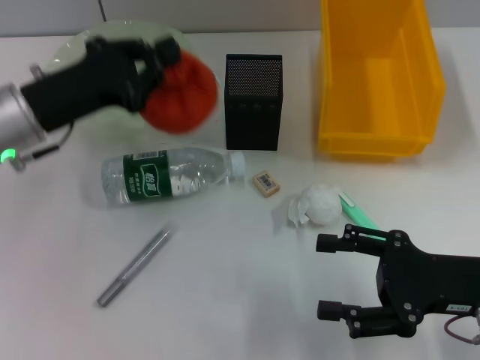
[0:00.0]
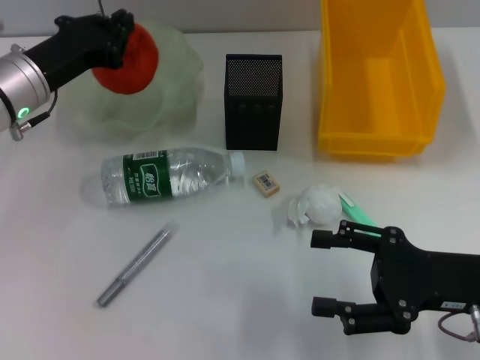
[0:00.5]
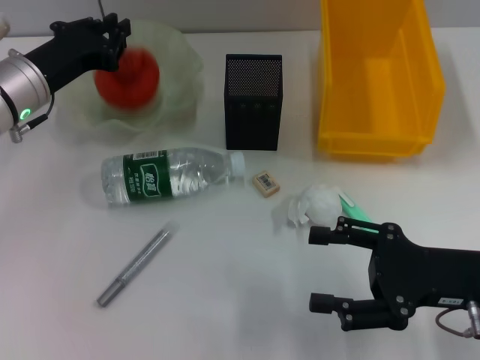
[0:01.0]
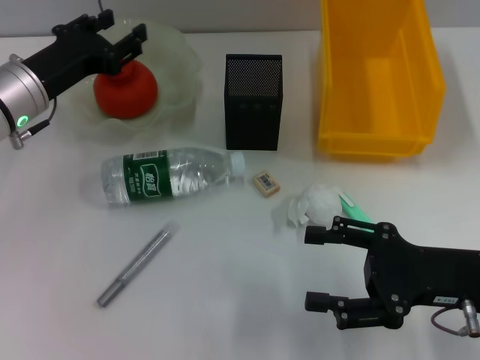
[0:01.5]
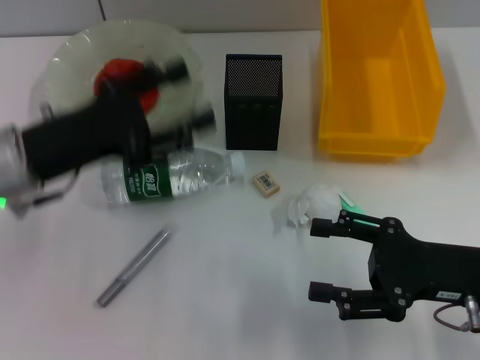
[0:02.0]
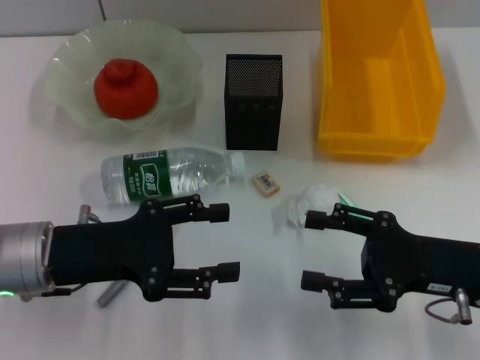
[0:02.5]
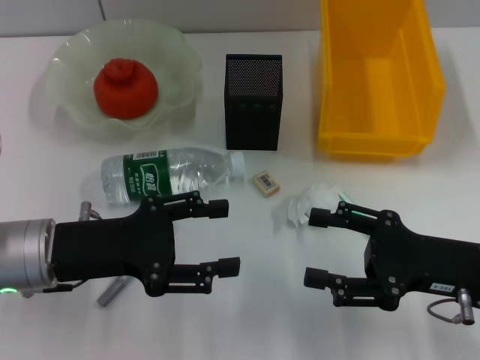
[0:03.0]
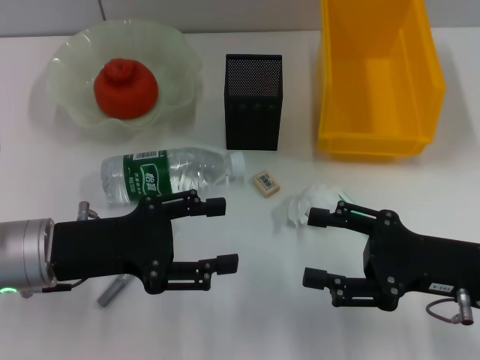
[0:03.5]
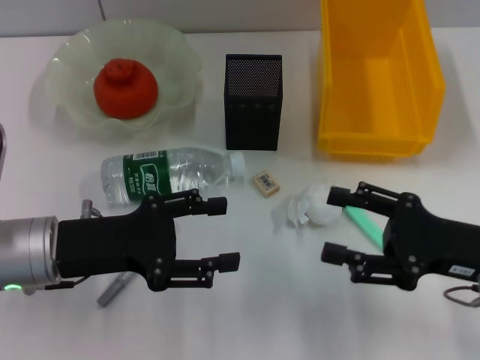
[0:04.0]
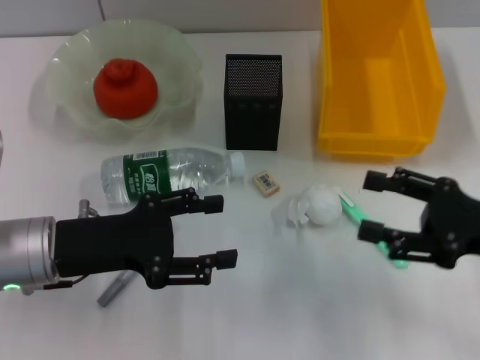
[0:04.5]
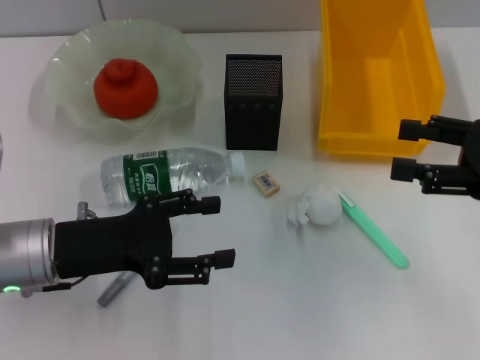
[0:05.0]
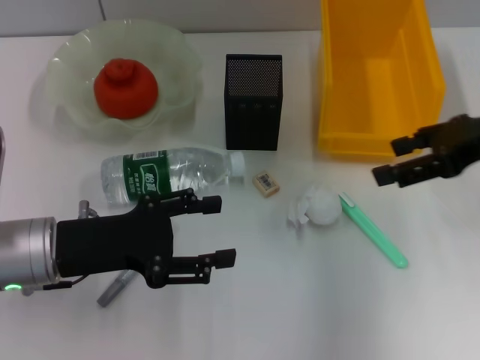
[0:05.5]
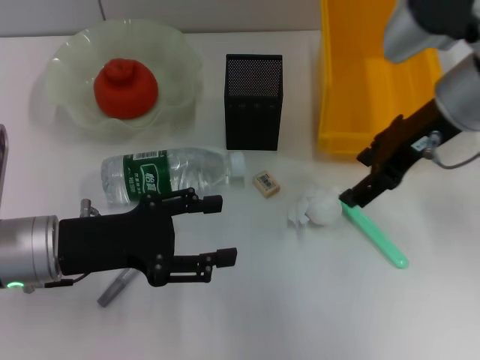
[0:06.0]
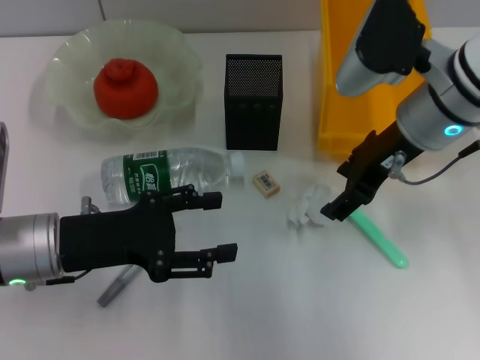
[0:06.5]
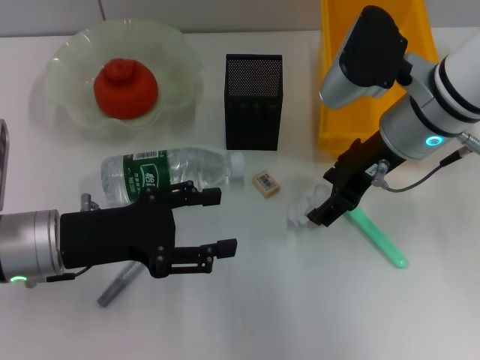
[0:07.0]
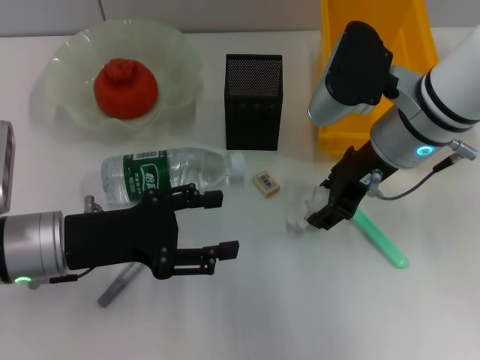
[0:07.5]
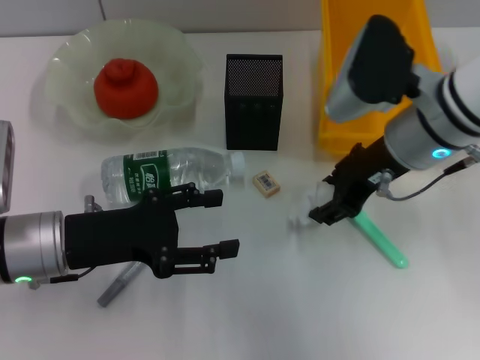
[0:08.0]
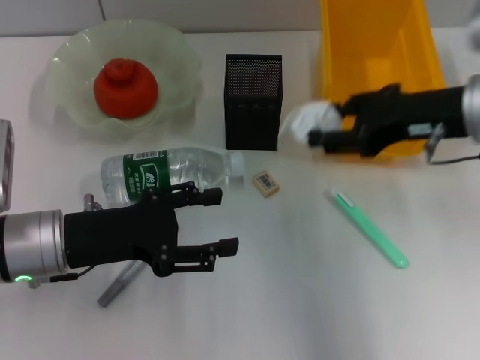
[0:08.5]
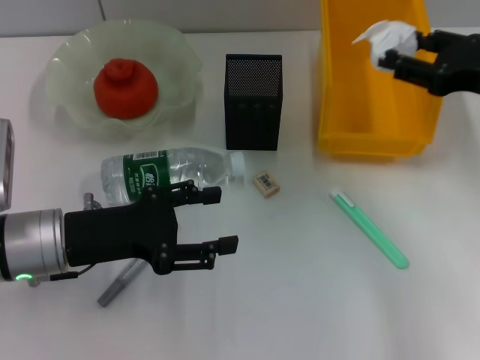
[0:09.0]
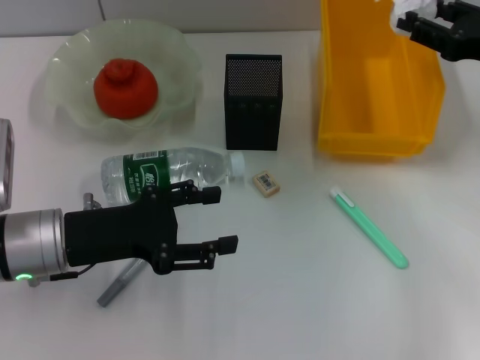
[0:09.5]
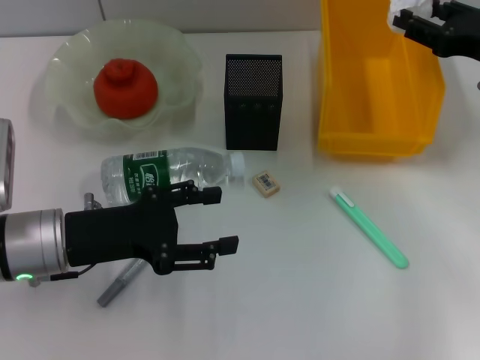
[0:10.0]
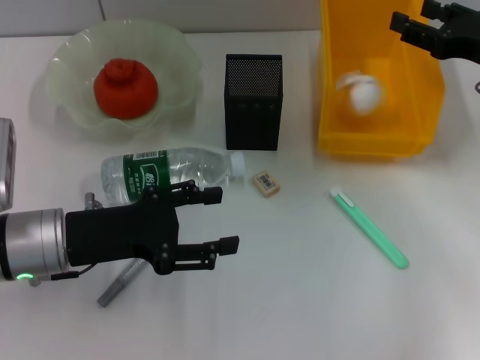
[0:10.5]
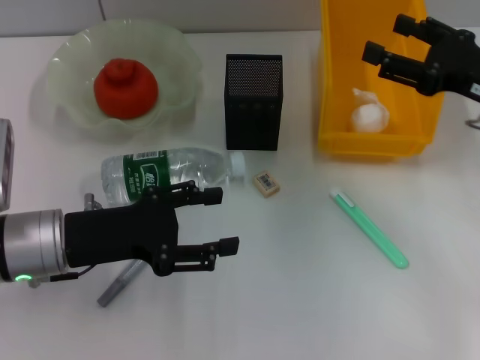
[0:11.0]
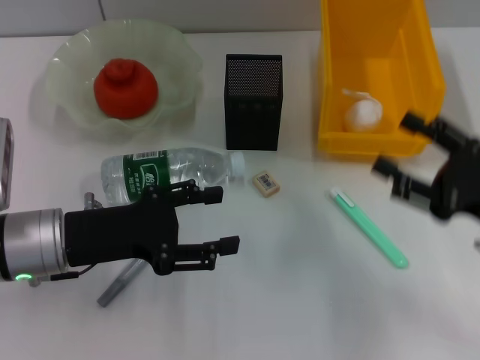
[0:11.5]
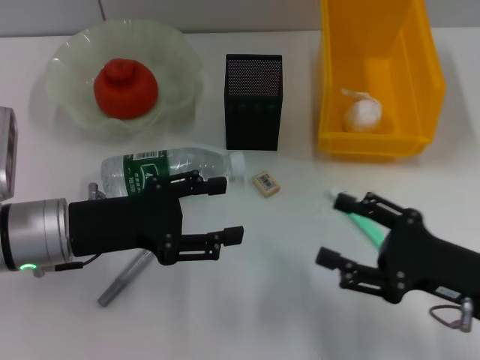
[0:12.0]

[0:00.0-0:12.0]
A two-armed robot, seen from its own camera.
Step, 0:01.5 to 0:07.0: Grab the paper ball with the right hand.
Step, 0:08.0 to 0:10.5: Place the paper ball into the trash can with the right hand.
0:00.0 to 0:02.0: The left gripper opens its fingers.
0:02.0 to 0:04.0: The left gripper ends up approximately 5 cm from where it was.
0:04.0 to 0:06.0: The right gripper shifts roughly 20 cm forward, upward and to the left.
0:06.0 to 0:08.0: The right gripper ends up approximately 5 cm from where it was, and closes.
0:08.0 to 0:10.0: The right gripper travels to the right by about 15 cm.
0:10.0 to 0:12.0: The right gripper is displaced backward and downward by about 20 cm.

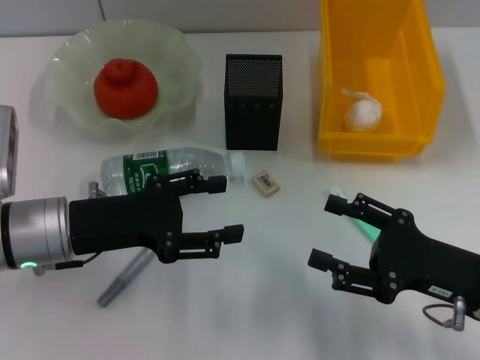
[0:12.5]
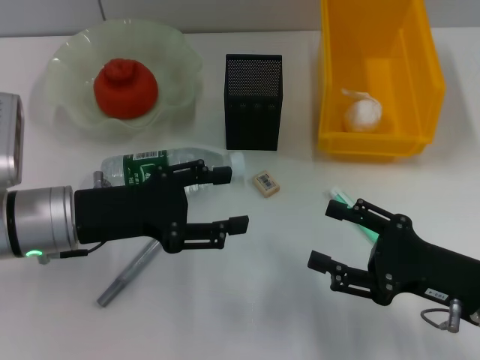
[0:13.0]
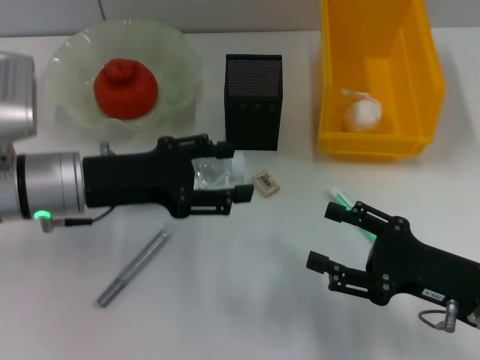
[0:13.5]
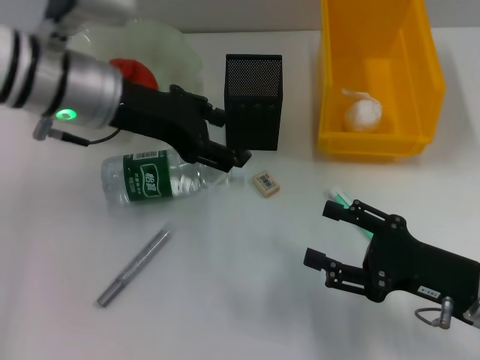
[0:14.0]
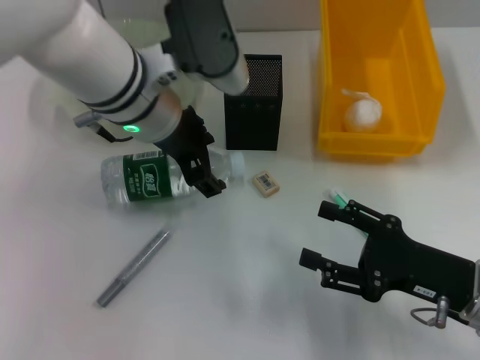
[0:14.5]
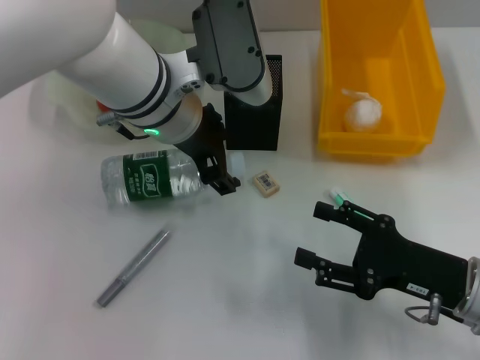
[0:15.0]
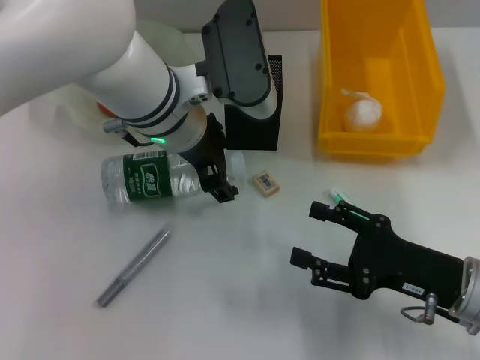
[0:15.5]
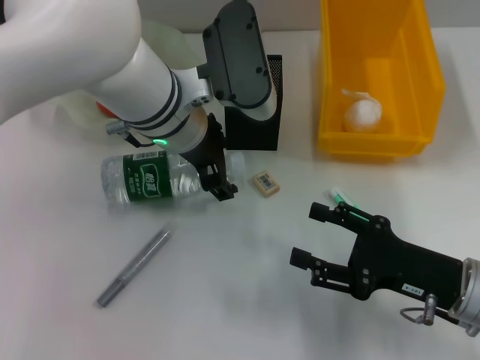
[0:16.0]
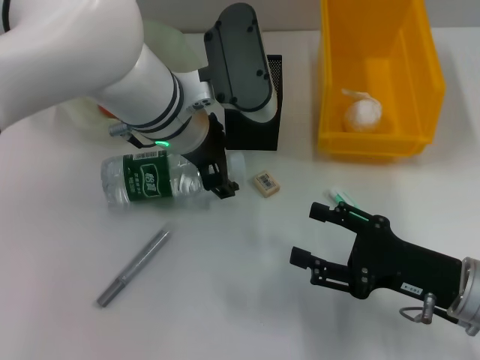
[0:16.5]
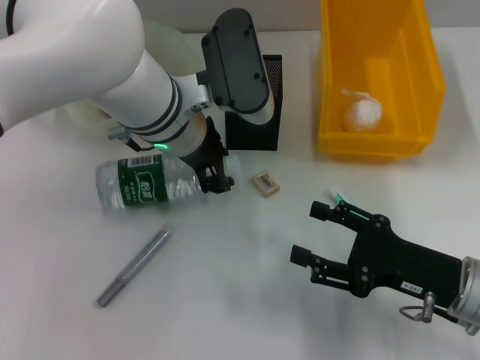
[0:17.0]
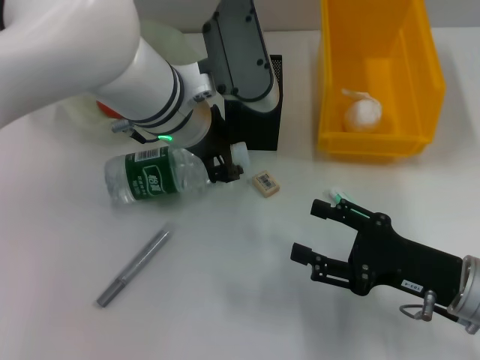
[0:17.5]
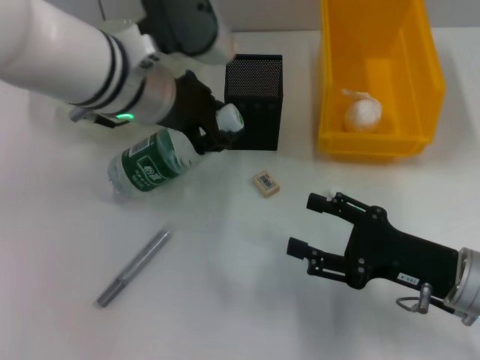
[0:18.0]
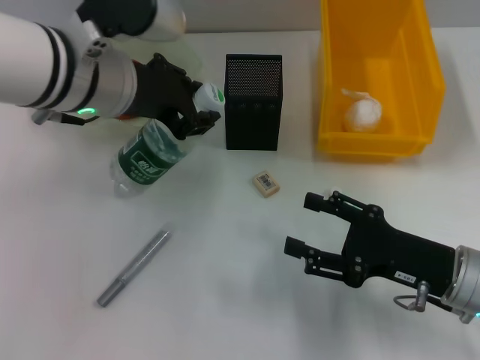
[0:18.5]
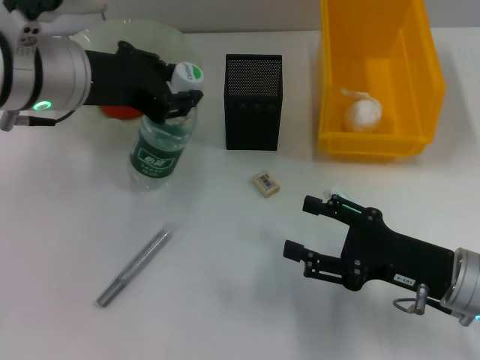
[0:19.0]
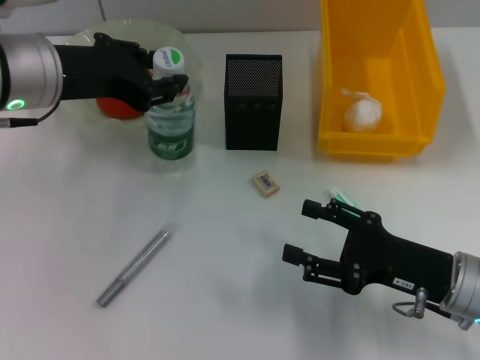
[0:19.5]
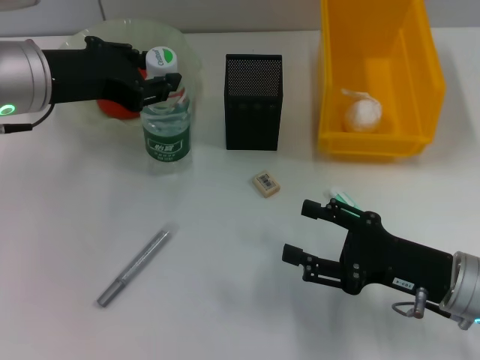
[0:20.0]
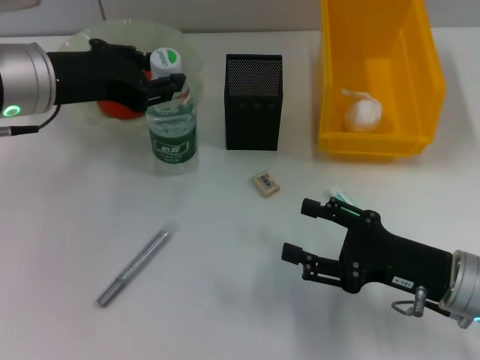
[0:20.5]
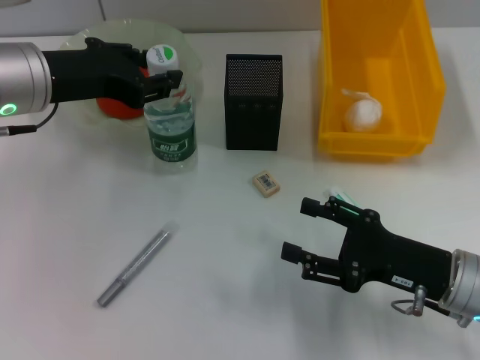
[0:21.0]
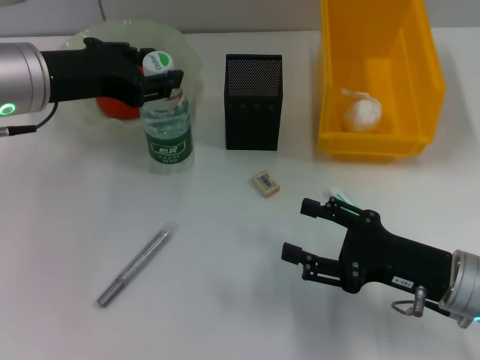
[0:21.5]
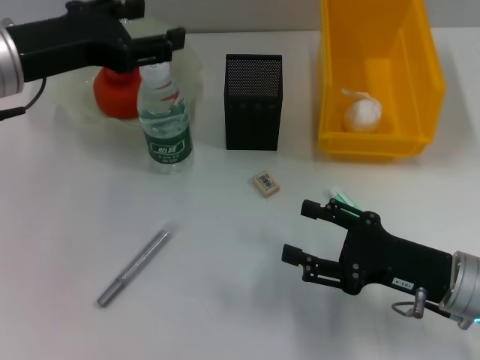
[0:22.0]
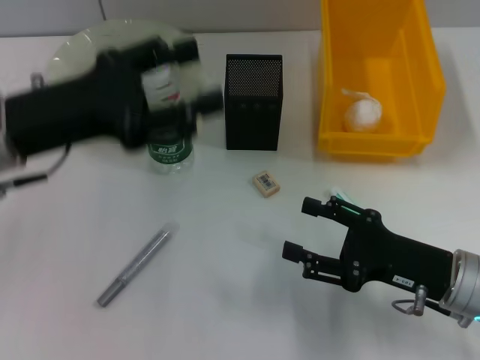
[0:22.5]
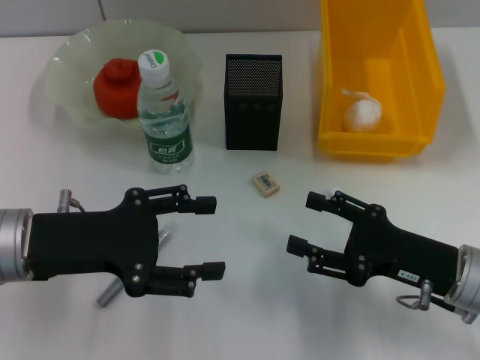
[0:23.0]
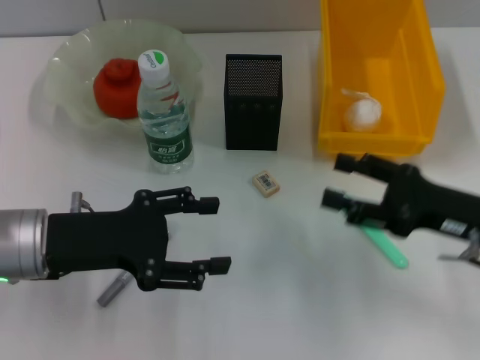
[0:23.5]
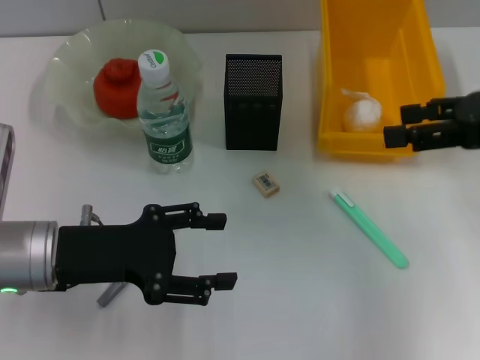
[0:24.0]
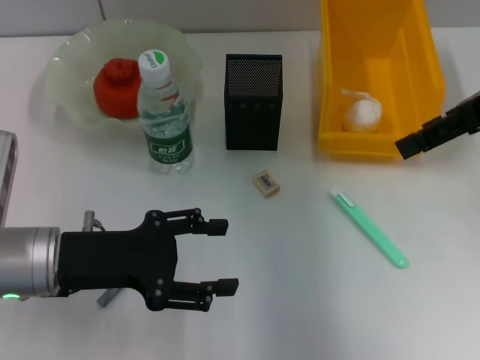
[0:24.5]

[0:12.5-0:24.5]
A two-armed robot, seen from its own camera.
Step, 0:12.5 to 0:17.0: Grab the water bottle with the left hand.
Step, 0:17.5 to 0:21.5: Place the water bottle on the table with the left hand.
0:12.5 to 0:14.5: The left gripper goes some 20 cm to the right, forward and upward.
0:14.5 to 0:16.5: The grippers move only a little.
0:16.5 to 0:18.5: The left gripper goes about 10 cm to the left and upward, and closes up.
0:18.5 to 0:20.5: The left gripper is displaced to the left by roughly 5 cm.
0:20.5 to 0:22.5: The left gripper shifts by about 5 cm, and opens up.
0:22.5 to 0:24.5: The right gripper moves upward and forward, about 25 cm, while the left gripper travels downward by some 10 cm.

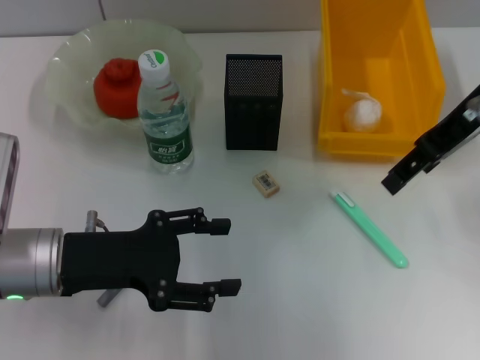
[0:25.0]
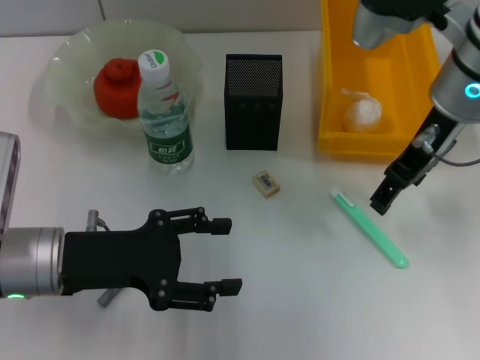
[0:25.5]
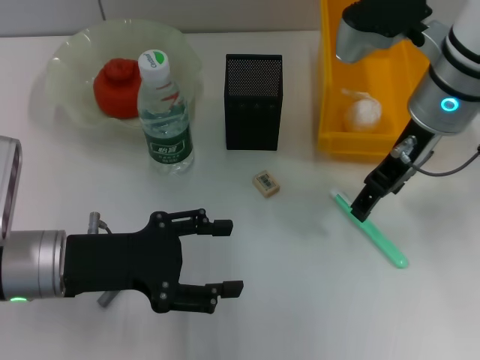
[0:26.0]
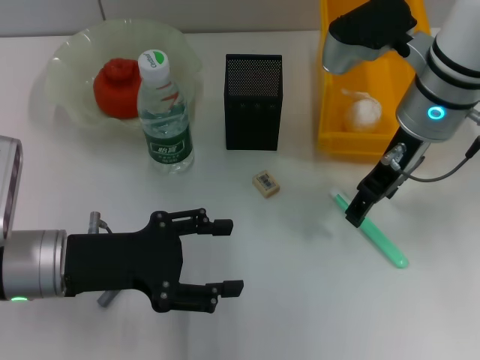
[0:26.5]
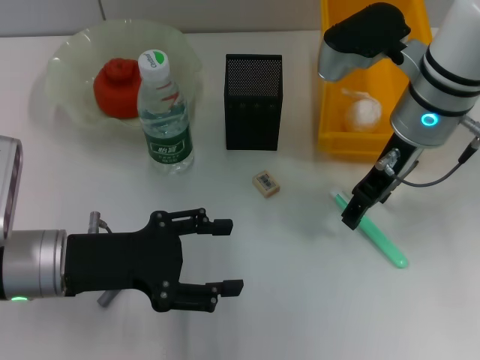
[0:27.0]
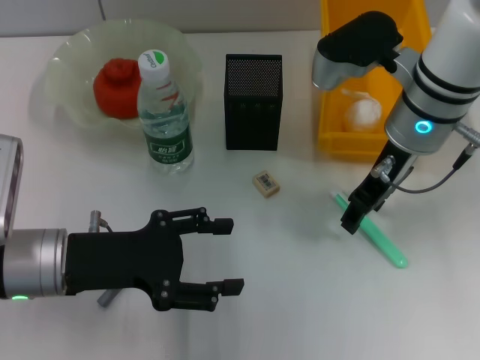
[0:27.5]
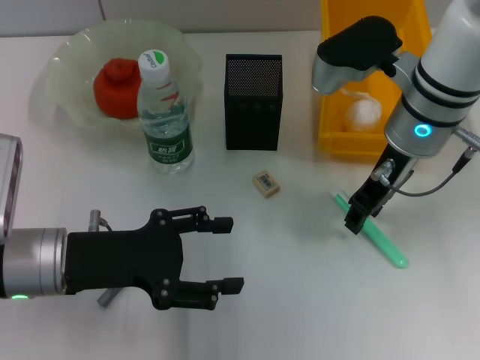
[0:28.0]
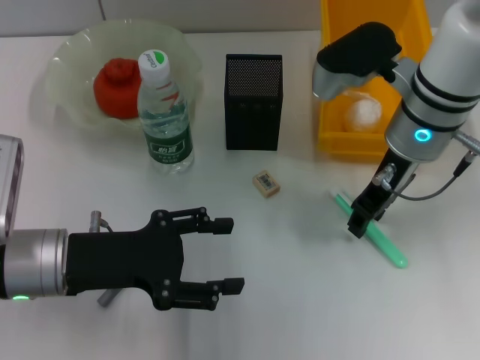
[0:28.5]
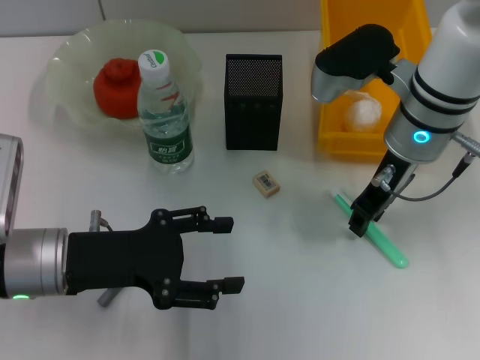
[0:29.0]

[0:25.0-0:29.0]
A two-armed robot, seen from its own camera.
0:25.0 to 0:27.0: The right gripper goes roughly 10 cm downward and to the left.
0:27.0 to 0:29.0: The right gripper closes its fingers.
